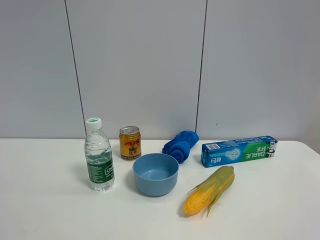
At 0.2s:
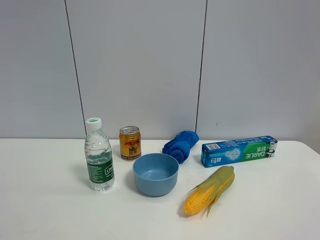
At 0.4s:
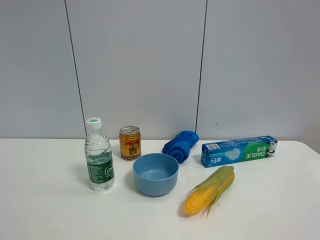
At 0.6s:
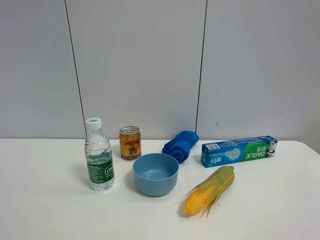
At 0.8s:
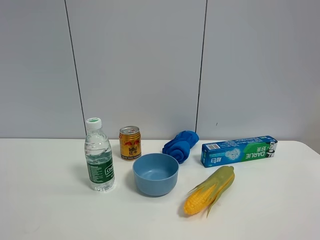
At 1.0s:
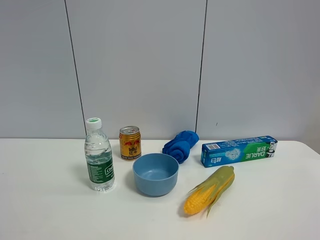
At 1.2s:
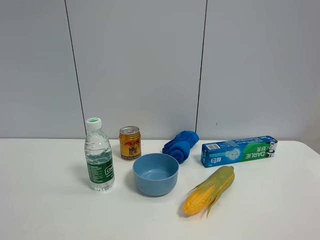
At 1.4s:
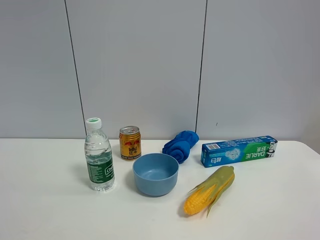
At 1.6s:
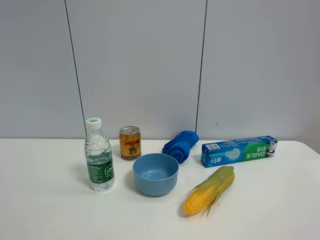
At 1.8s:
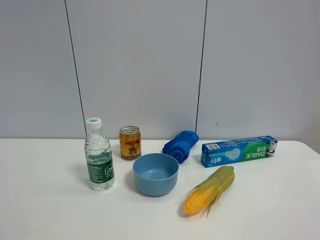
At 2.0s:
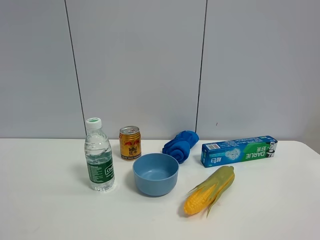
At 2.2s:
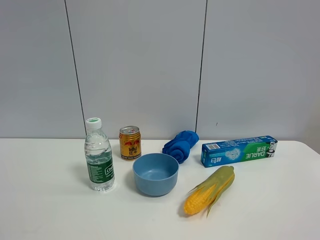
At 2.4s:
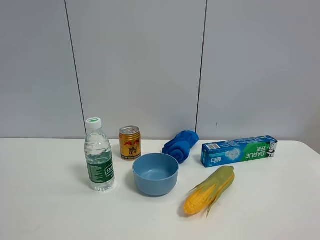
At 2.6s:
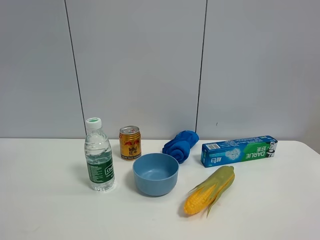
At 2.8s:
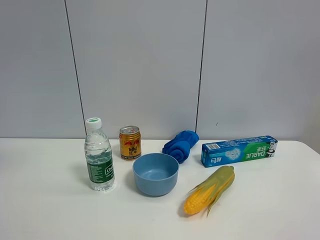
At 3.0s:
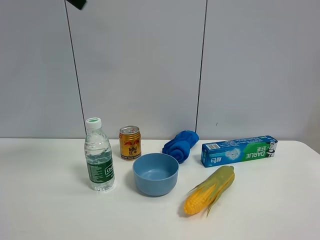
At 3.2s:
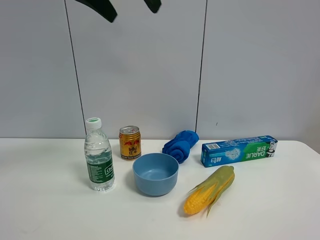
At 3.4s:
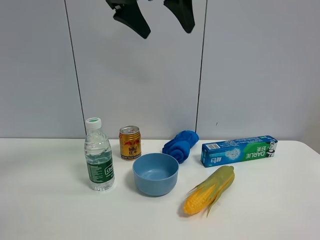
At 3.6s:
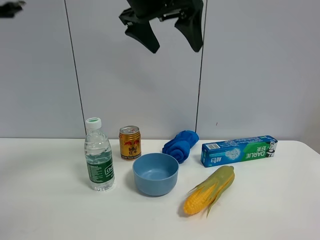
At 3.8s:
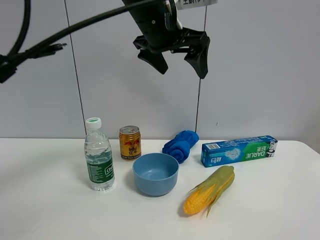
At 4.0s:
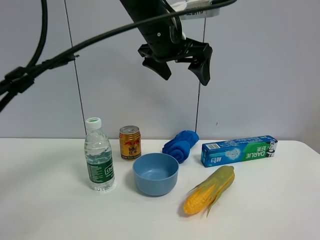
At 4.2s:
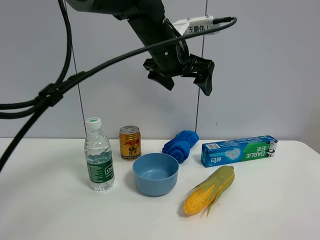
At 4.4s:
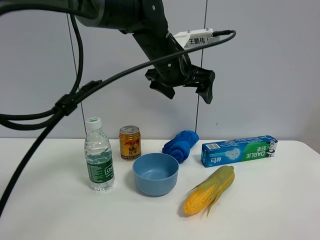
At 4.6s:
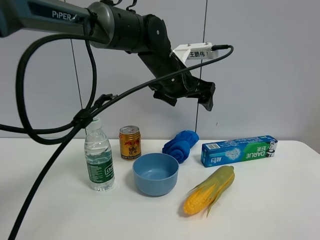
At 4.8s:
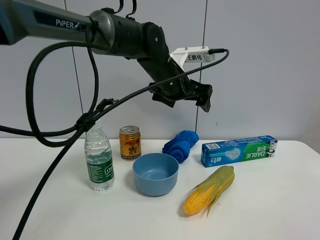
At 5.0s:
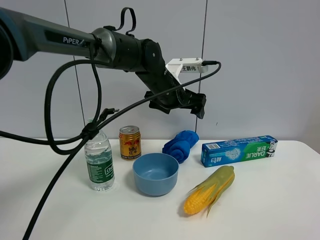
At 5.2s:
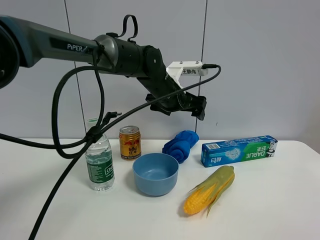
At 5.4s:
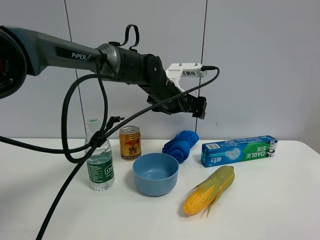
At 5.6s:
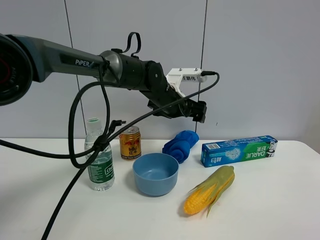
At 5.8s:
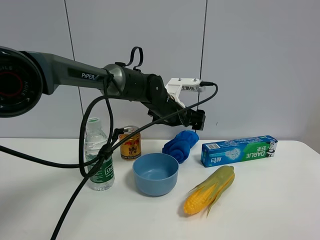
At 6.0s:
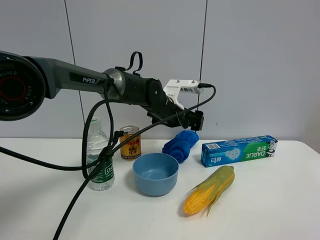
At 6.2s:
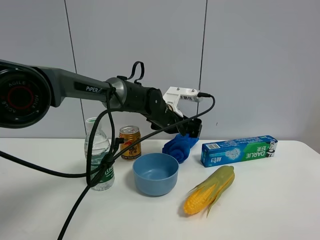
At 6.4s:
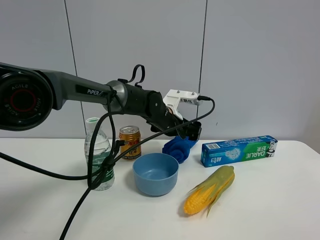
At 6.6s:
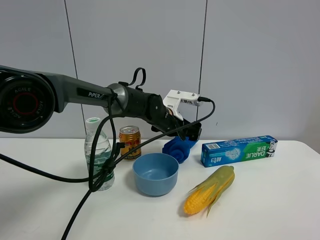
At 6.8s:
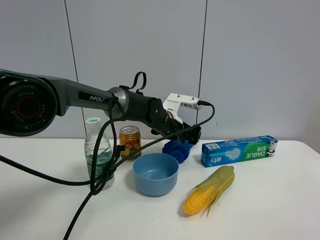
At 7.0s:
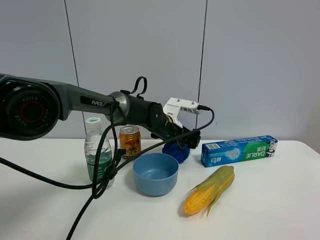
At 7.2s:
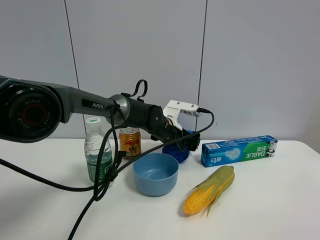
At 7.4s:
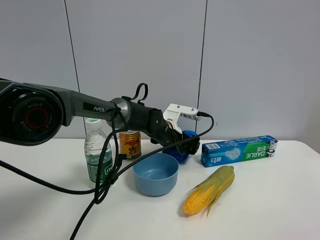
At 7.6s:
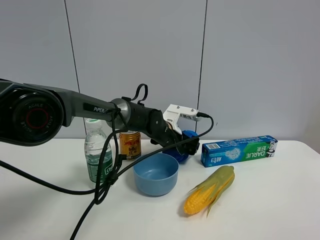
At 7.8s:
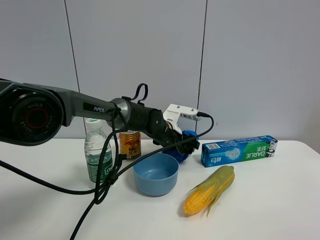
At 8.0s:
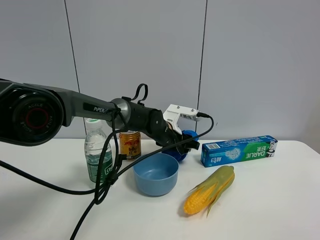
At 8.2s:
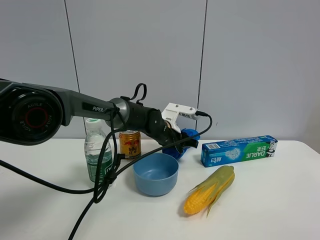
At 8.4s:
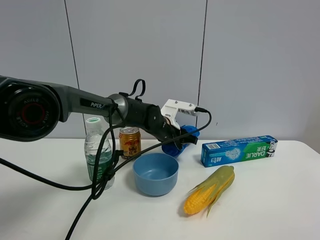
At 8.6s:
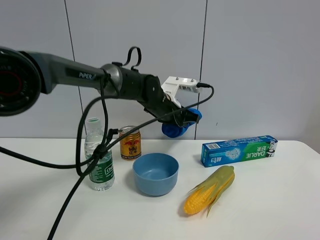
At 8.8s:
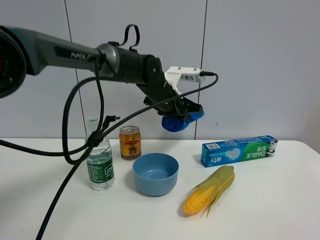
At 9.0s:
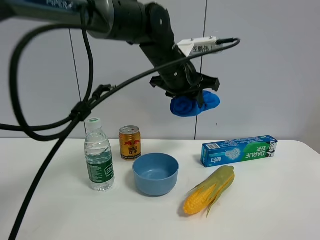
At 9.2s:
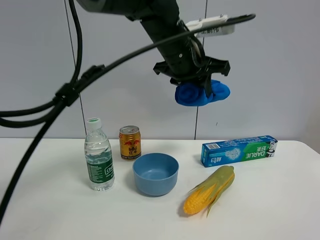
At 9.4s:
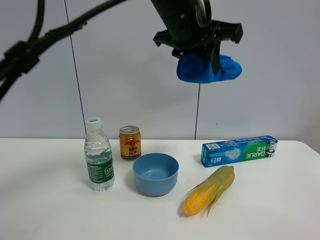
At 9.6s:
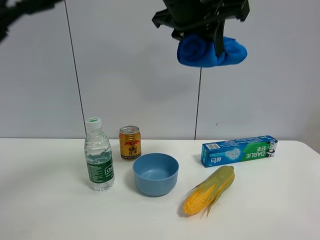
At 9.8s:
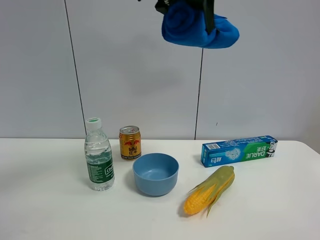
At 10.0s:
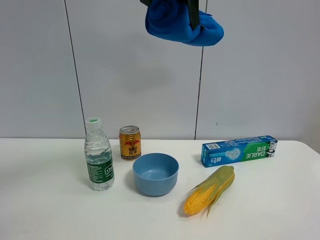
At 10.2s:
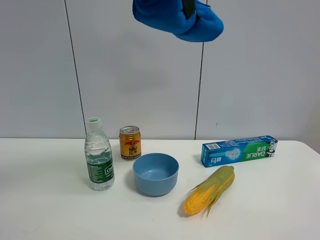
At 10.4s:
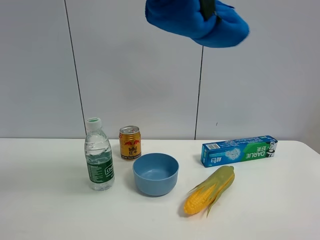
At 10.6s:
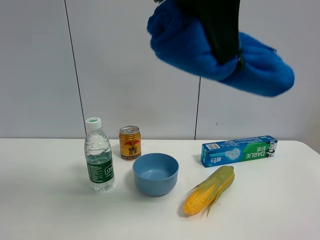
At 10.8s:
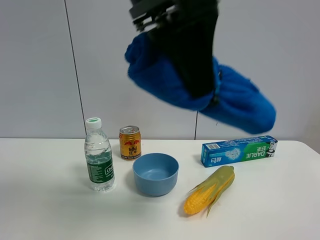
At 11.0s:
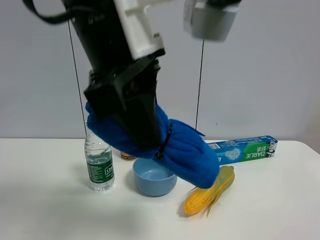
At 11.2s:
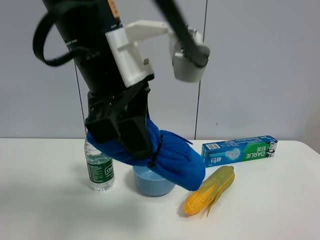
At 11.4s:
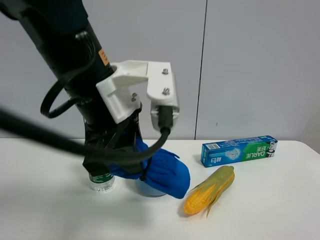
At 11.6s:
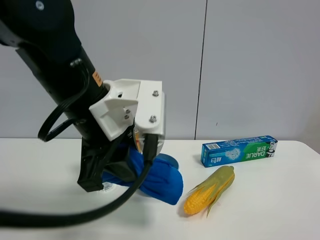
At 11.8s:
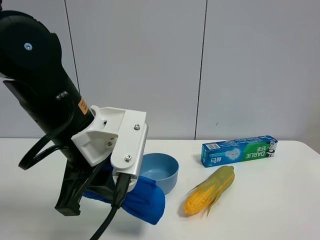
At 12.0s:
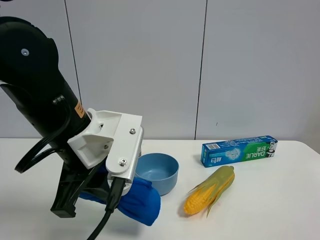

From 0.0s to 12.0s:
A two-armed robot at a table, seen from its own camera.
Task of the whole recording: the gripper move the object.
Step, from 0.0s to 8.0s: Grasp the blue towel with the left gripper.
From 1.6s to 3.0s: The left gripper moves forward, to the right and upward, about 40 cm.
From 3.0s to 4.4s: The left gripper shifts about 25 cm downward, to the right and forward.
From 4.4s to 6.0s: The left gripper goes about 15 cm downward and forward.
From 6.0s to 7.6s: The left gripper heads downward, covering approximately 5 cm.
From 7.6s to 9.0s: The left gripper moves upward, some 20 cm, and closes up.
From 9.0s to 10.4s: The left gripper shifts roughly 25 cm backward and upward.
From 10.4s to 12.0s: The left gripper heads downward and to the left, covering roughly 25 cm.

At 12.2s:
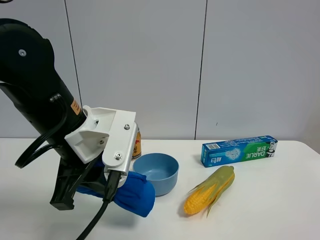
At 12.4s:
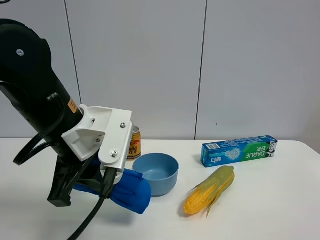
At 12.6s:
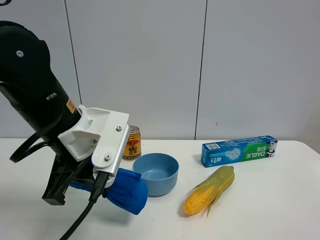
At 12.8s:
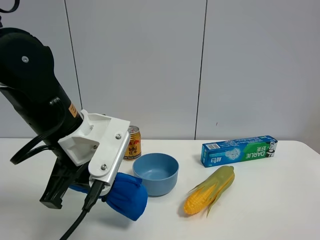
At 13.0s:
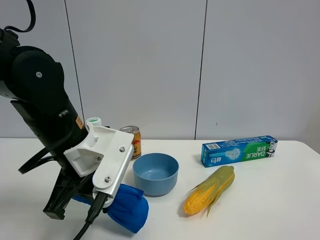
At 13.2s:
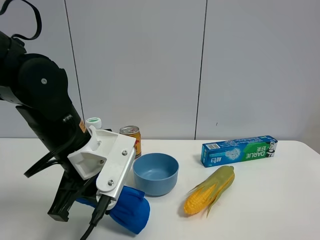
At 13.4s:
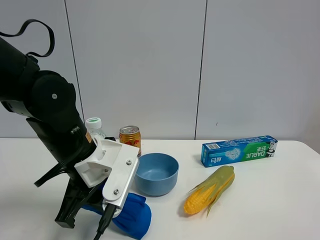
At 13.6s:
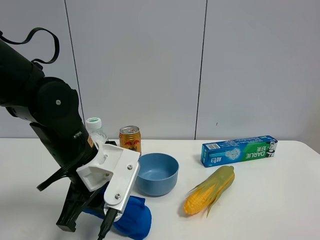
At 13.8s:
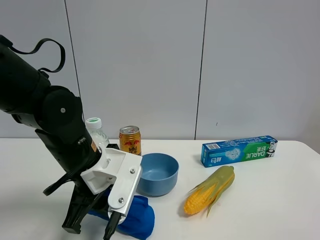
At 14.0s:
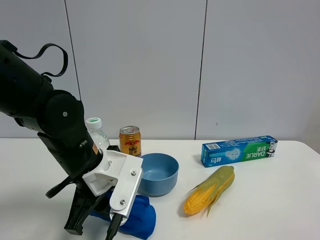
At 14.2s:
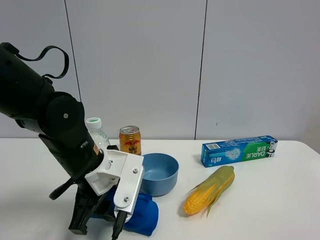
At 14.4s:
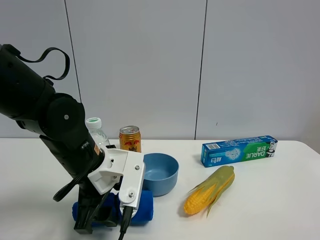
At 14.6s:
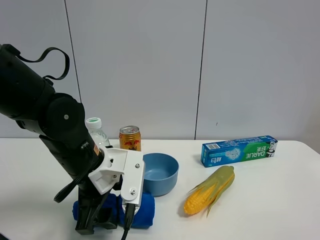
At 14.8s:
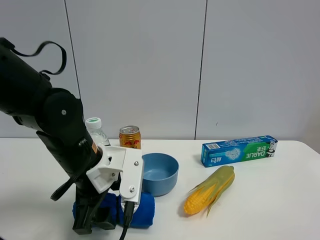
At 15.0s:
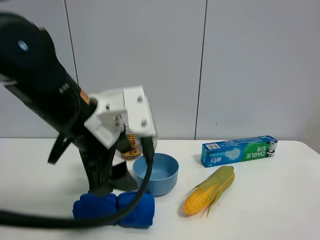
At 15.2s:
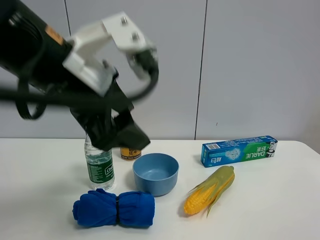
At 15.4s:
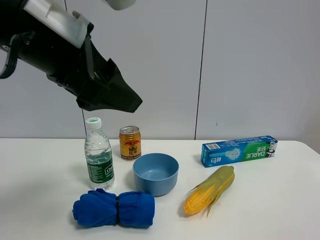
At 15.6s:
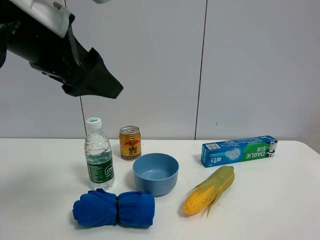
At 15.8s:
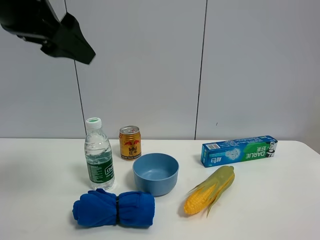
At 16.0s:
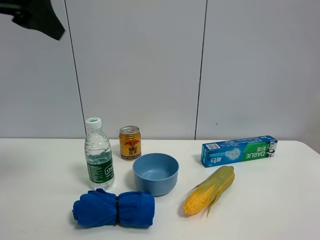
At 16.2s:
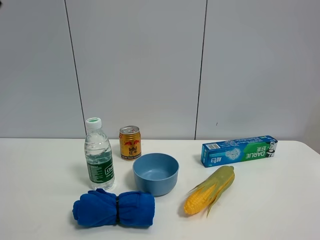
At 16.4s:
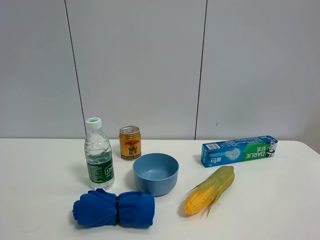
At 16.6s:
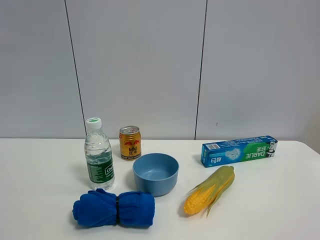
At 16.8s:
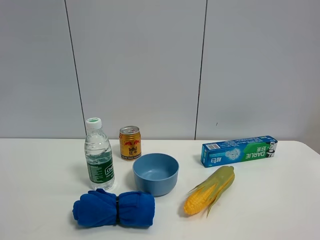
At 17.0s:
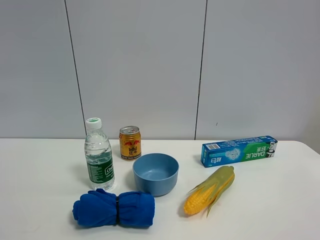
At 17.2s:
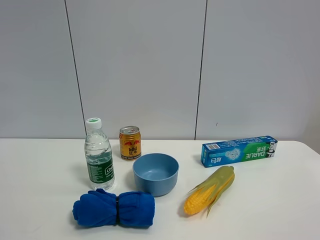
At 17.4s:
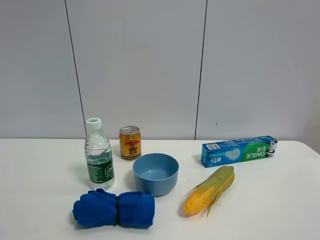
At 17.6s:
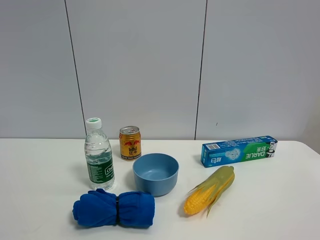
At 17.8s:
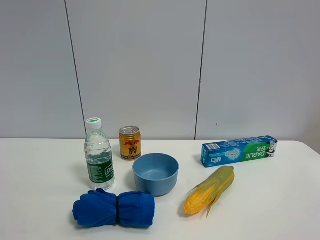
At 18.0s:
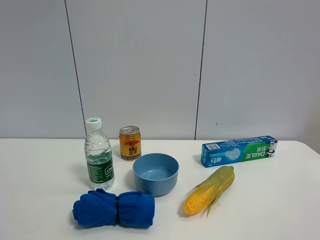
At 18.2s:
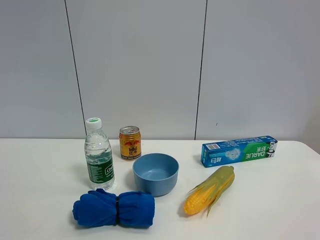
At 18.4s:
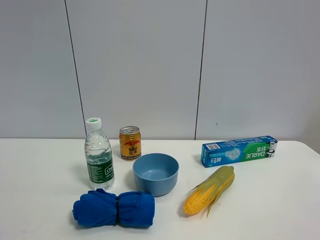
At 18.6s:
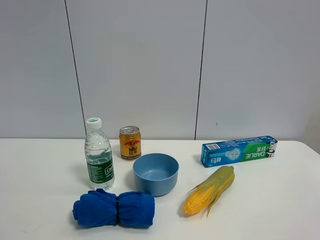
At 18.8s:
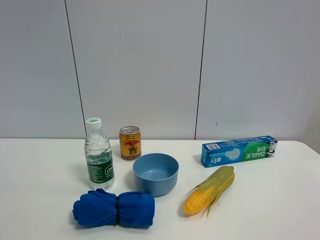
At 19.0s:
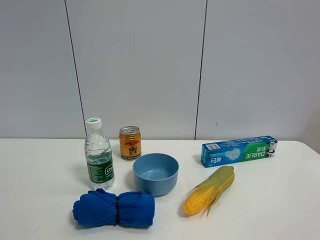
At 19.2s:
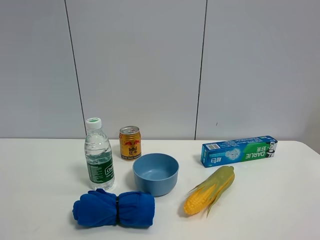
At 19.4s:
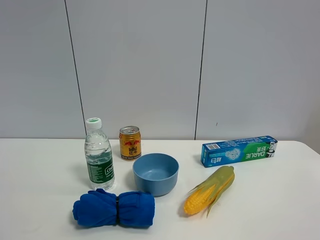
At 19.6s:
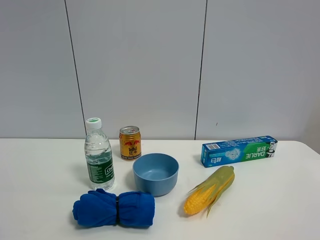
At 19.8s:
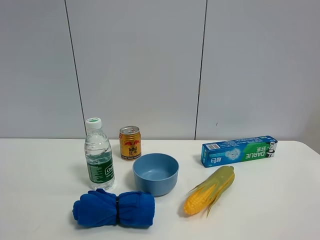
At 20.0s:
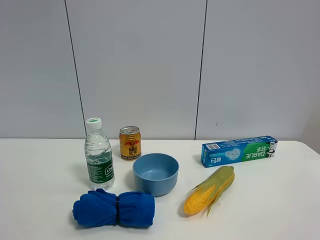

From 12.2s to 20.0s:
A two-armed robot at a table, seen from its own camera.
Task of the whole recording: the gripper move the object.
Step, from 12.2s to 14.4s: Place the blue towel on the table with the left gripper.
From 12.2s to 13.8s: The left gripper heads downward, covering roughly 5 cm.
From 13.8s to 15.4s: The left gripper heads upward, covering approximately 20 cm, and opens its fingers.
From 15.4s to 16.8s: The left gripper is displaced to the left, backward and upward by roughly 30 cm.
From 18.4s to 20.0s: Both grippers stay about where they are.

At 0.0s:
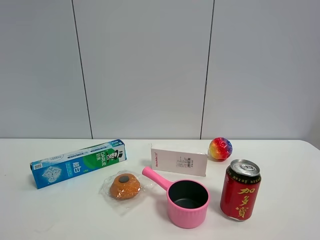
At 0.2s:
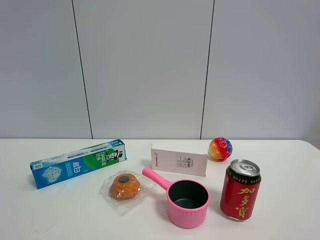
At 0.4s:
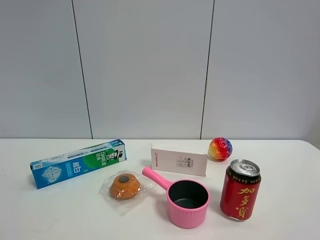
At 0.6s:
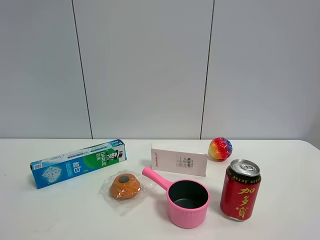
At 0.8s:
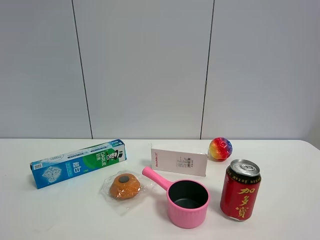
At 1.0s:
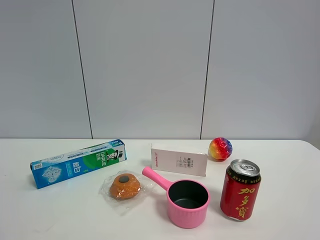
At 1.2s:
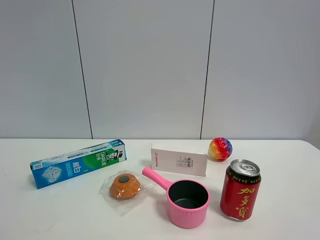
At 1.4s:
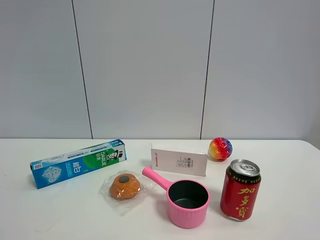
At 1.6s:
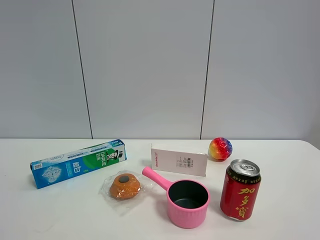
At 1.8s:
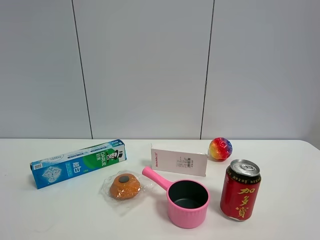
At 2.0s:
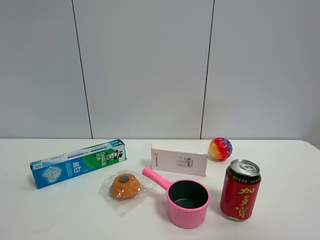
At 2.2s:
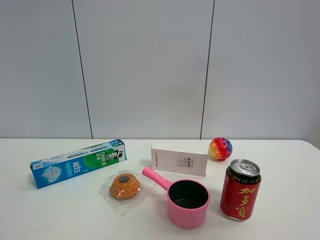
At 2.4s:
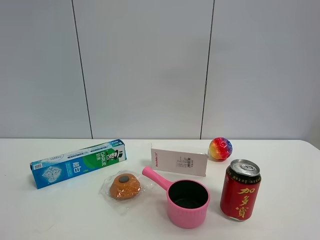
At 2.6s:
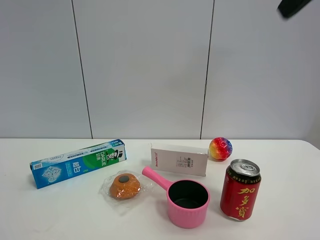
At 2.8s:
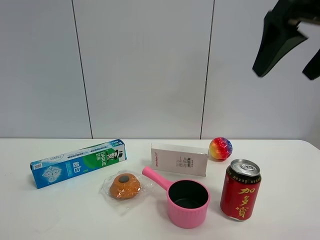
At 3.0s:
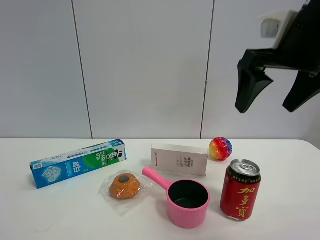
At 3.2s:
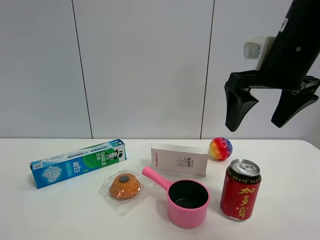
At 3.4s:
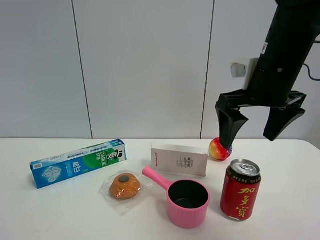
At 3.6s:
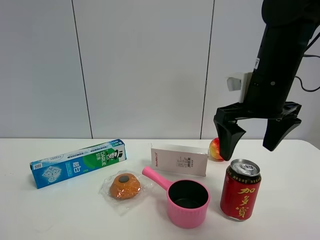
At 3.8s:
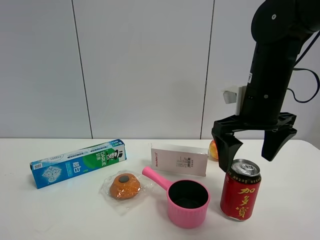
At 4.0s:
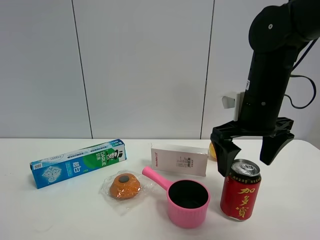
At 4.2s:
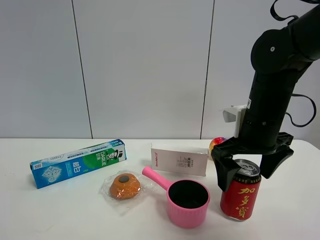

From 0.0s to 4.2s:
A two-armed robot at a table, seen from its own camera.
Task of the whole recording: the gripper move the object.
From 1.4s to 2.8s: The right gripper moves forward, some 25 cm, and opens its fingers.
From 2.8s to 4.2s: The right gripper moves downward, some 20 cm.
